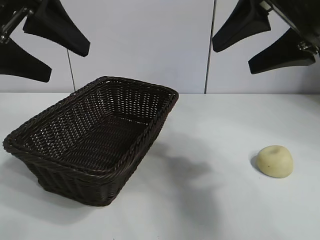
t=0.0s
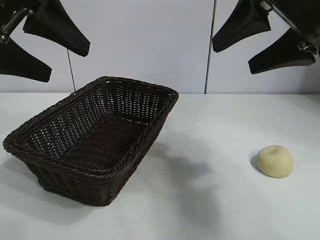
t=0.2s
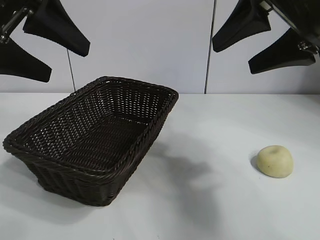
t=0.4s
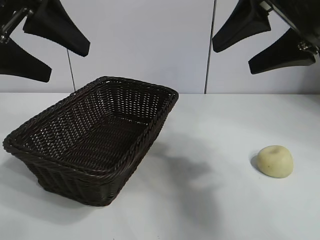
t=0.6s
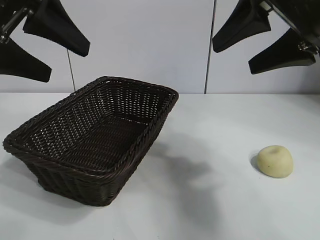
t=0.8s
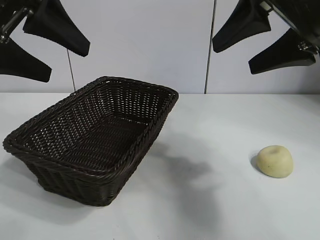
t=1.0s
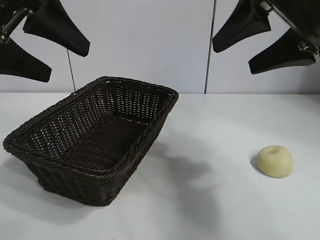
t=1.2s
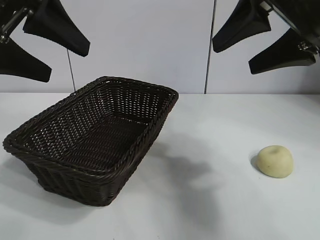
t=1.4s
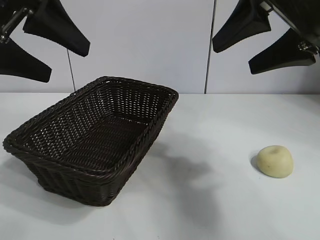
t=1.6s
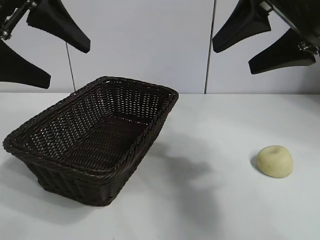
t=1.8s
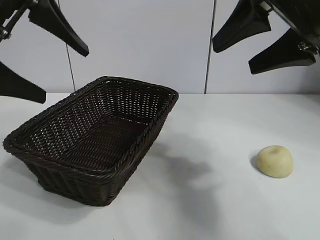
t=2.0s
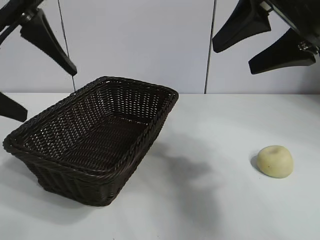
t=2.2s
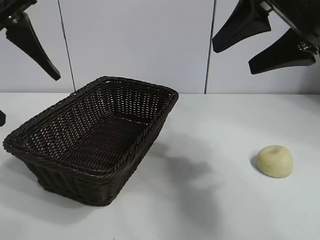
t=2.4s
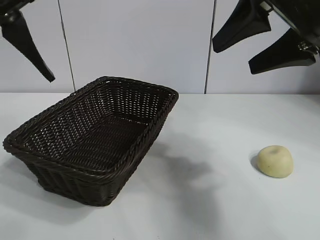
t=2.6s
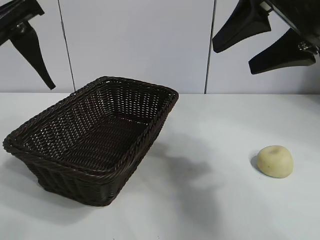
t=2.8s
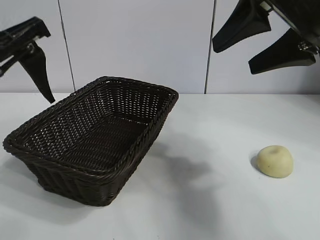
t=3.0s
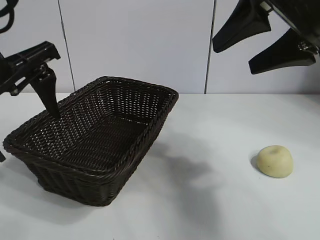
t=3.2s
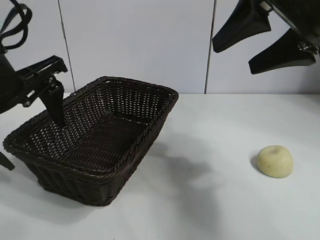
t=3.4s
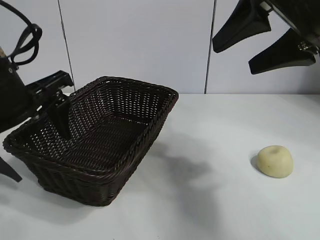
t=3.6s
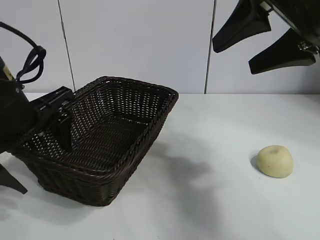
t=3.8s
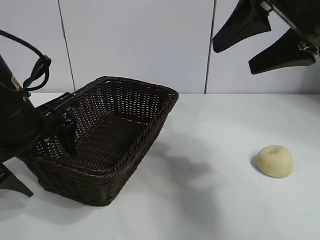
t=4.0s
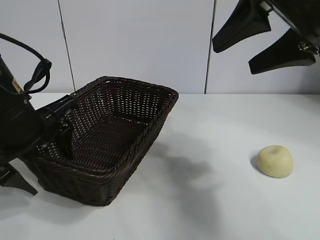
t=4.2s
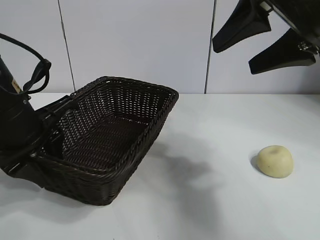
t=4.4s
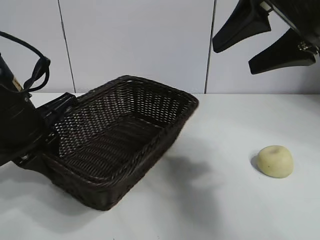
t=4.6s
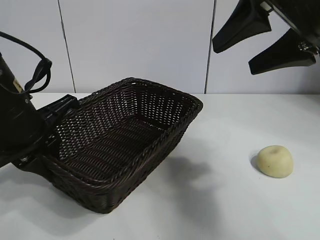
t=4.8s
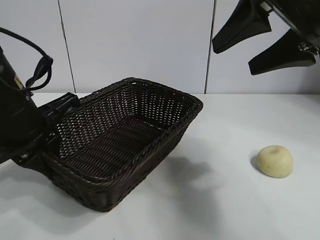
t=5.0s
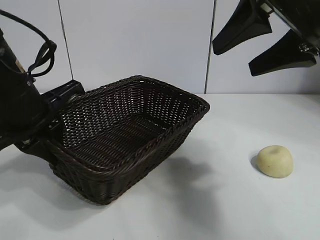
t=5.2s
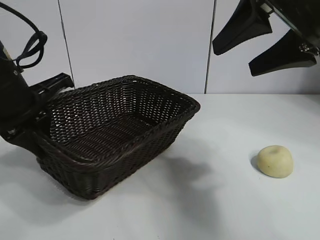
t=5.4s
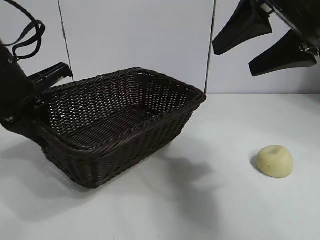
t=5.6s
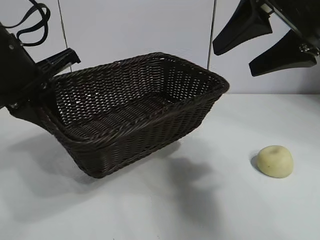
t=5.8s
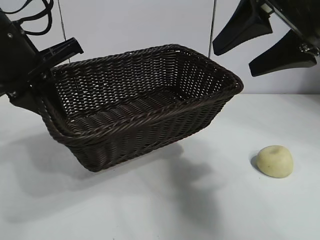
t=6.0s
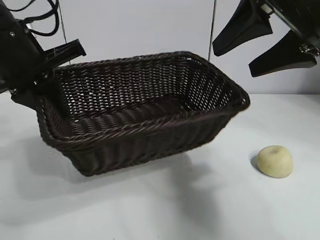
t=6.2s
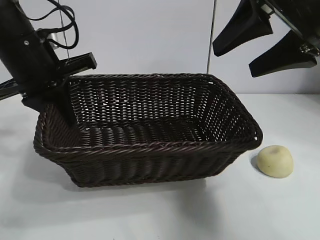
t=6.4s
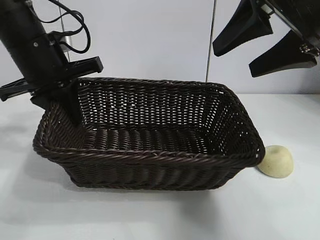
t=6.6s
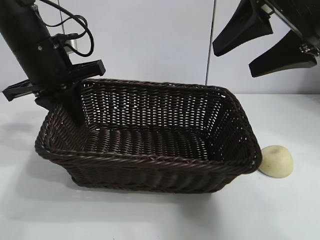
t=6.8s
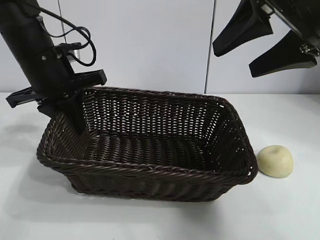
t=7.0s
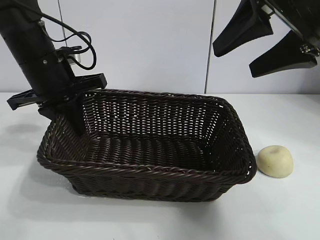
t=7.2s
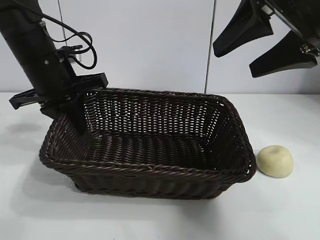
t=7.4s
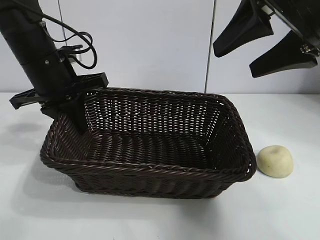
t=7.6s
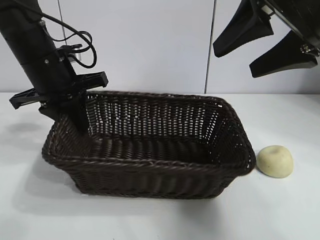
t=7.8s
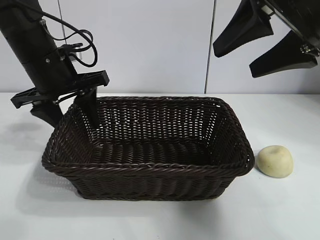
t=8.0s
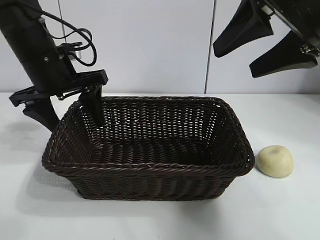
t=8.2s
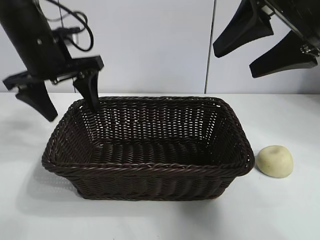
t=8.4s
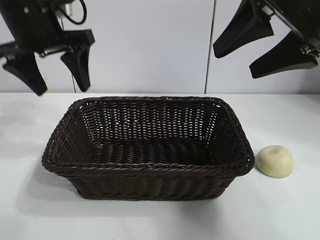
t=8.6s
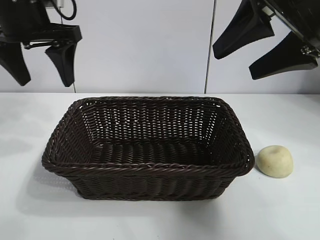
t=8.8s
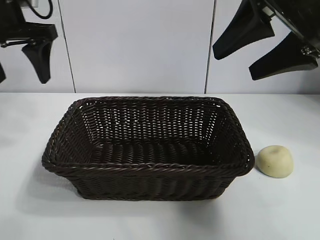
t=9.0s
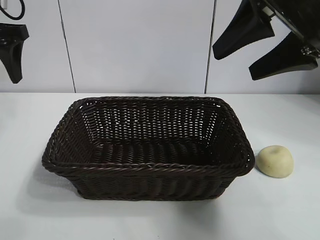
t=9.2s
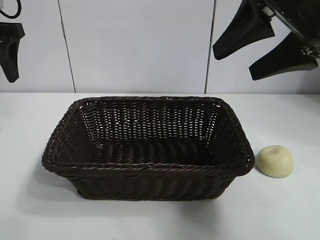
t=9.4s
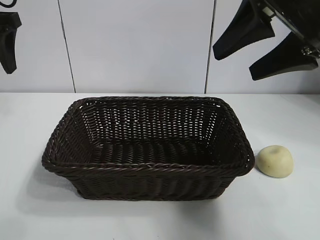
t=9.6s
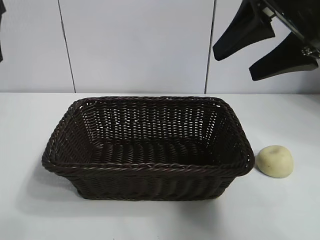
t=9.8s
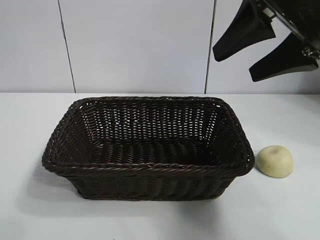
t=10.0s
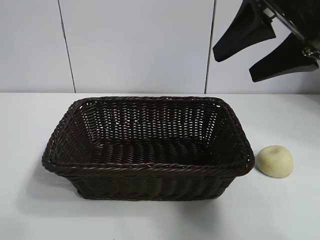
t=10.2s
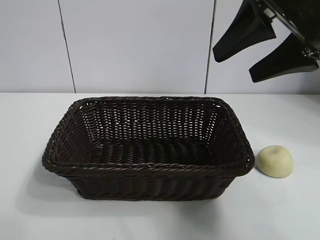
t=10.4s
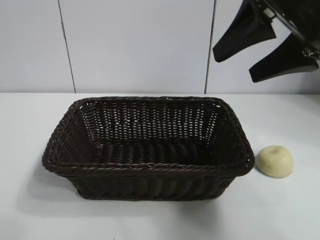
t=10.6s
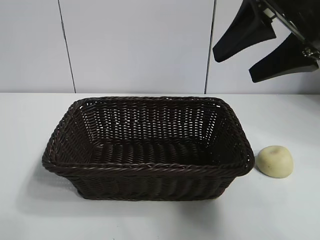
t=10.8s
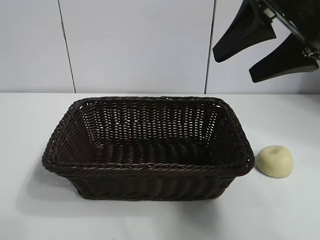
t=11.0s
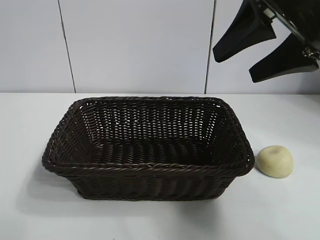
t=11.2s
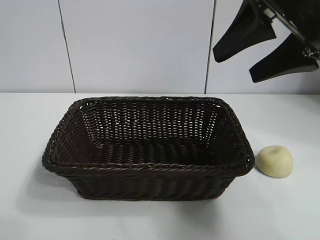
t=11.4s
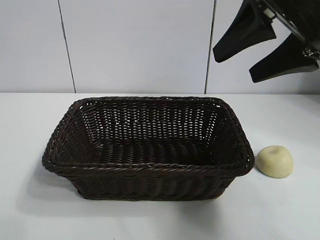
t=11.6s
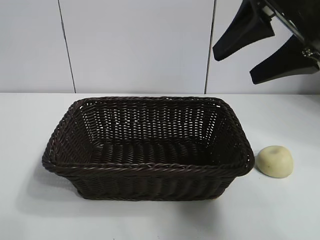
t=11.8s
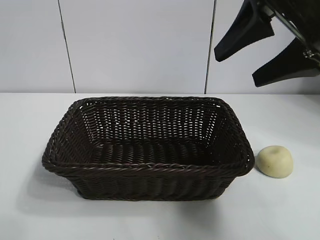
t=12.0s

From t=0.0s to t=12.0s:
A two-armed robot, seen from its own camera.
Task of the whole recording: pick up the egg yolk pastry and put it into the basket.
Step, from t=1.6s to t=4.6s: Grasp the basket with left gripper.
Step, from t=4.8s to t=8.2s: Place the basket in the center of view with left gripper.

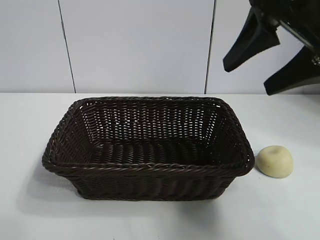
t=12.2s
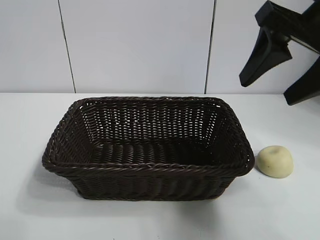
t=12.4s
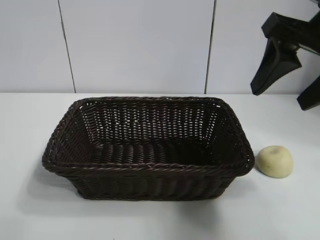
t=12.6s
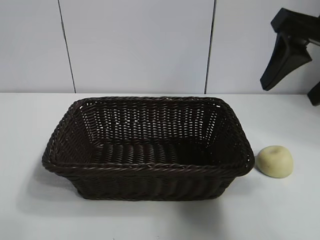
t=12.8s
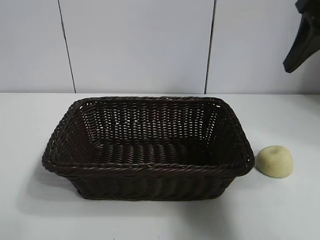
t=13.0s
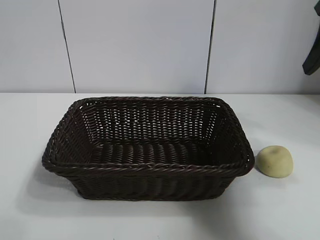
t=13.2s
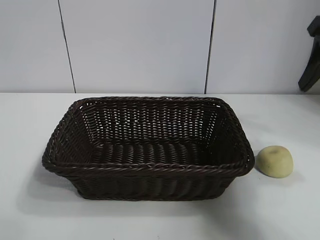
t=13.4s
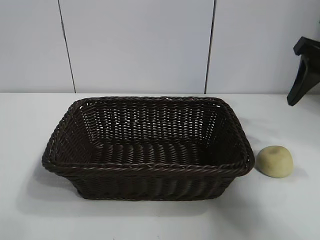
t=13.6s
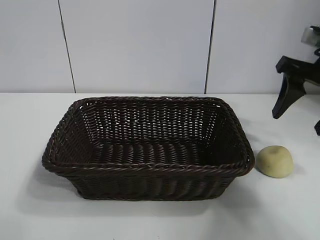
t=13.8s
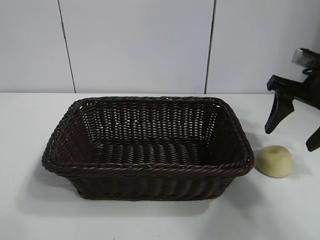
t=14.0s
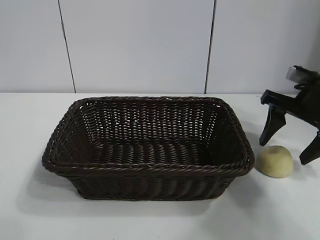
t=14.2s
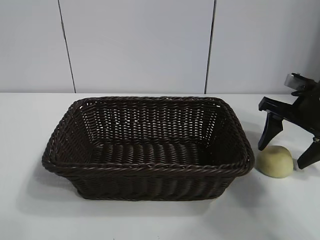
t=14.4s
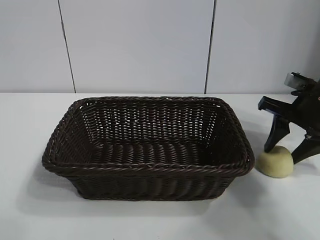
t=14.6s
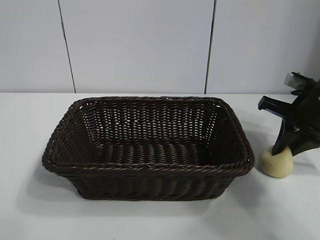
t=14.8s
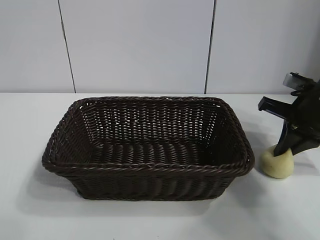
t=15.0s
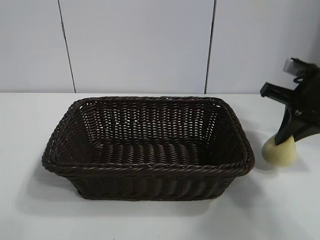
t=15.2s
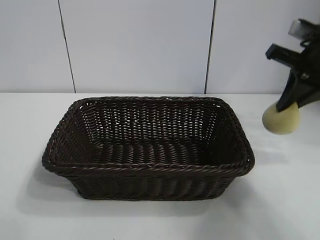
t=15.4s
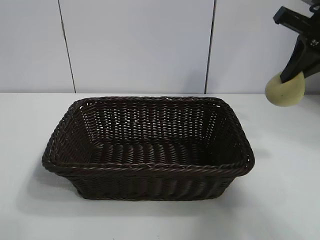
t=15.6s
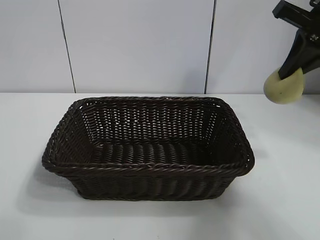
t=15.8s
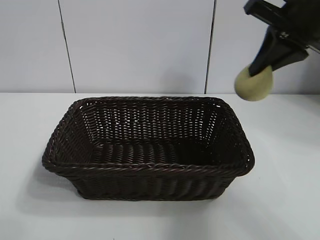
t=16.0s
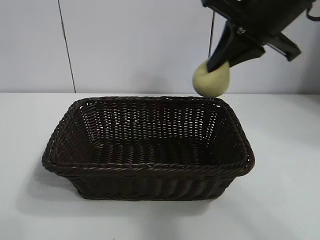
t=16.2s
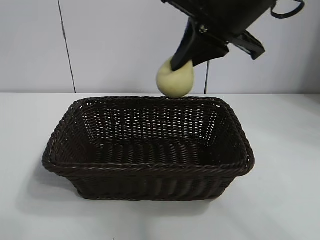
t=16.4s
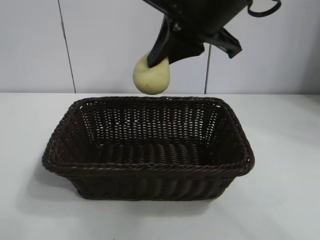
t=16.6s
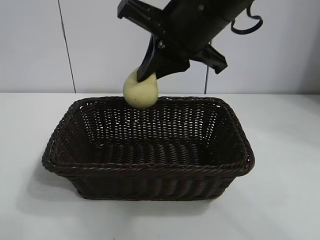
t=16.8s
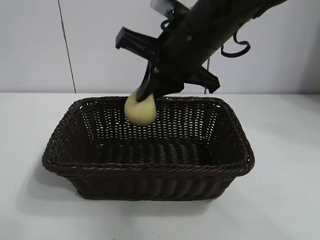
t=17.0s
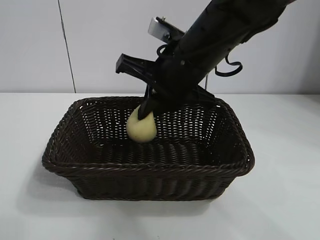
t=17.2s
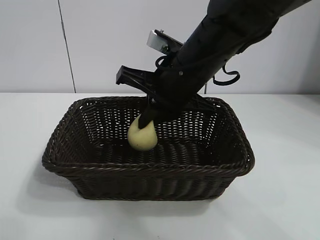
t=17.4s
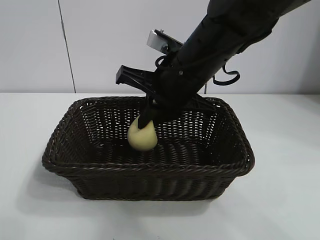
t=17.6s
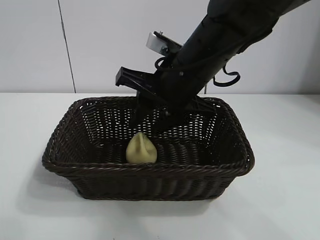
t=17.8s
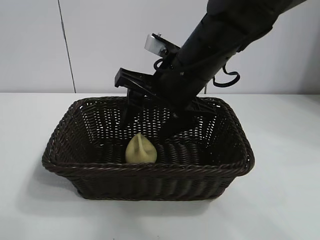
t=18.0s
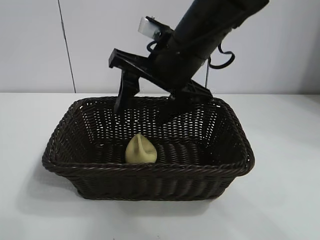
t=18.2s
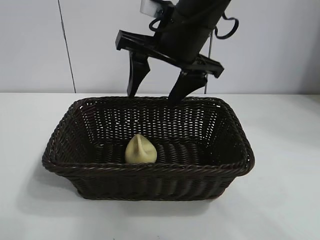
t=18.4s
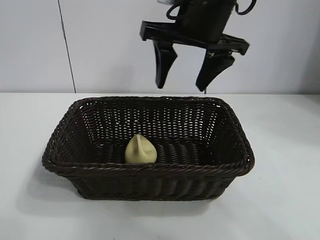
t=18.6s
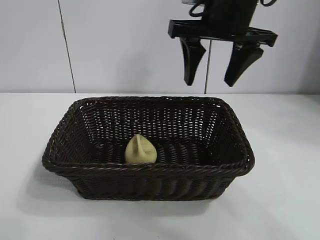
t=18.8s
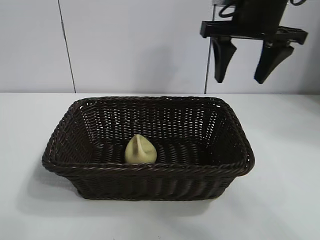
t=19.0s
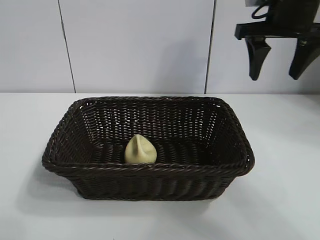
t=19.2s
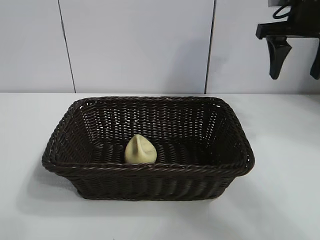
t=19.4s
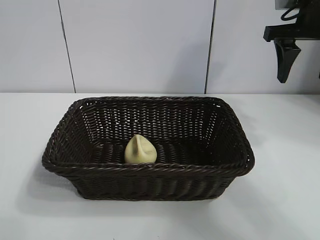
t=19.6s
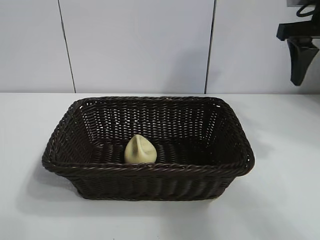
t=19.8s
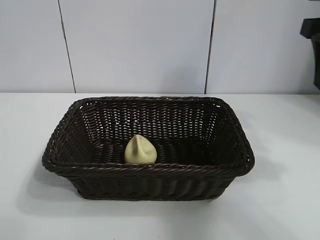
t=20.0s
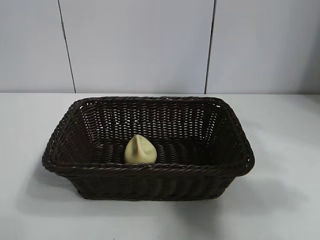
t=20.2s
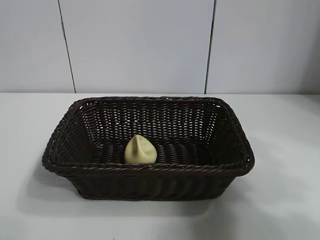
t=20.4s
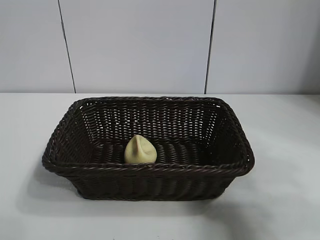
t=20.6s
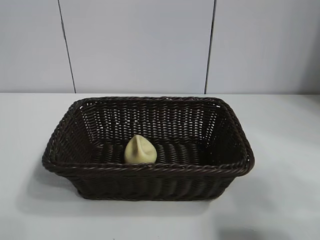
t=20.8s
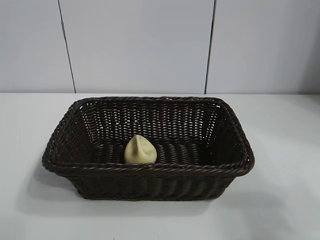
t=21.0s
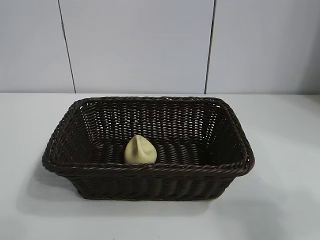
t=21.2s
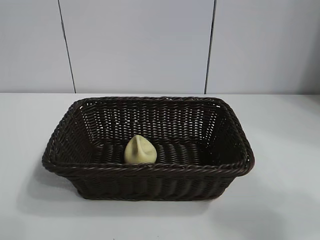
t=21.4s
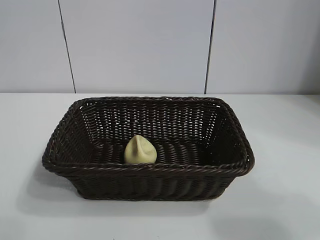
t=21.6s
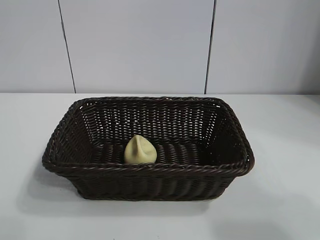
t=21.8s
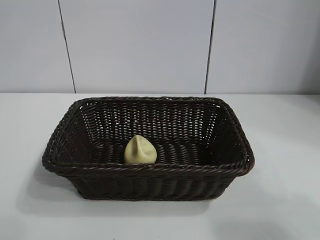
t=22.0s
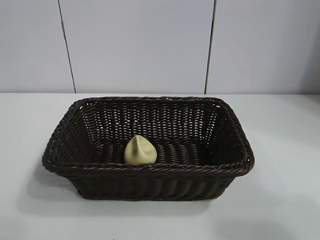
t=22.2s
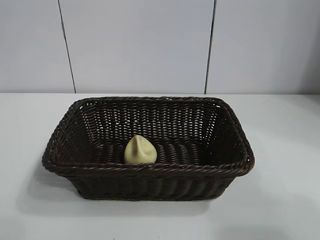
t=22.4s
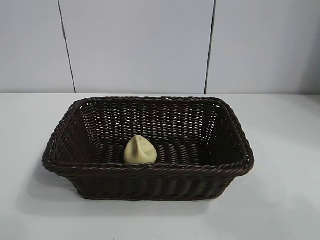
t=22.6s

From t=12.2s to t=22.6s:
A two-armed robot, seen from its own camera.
Task of the whole recording: pick up the egg yolk pastry and put it into the basket.
Step, from t=12.2s to t=14.8s: Grasp egg yolk pastry with right gripper.
Step, from t=15.2s to t=18.0s: Place the egg yolk pastry in the basket with right gripper.
